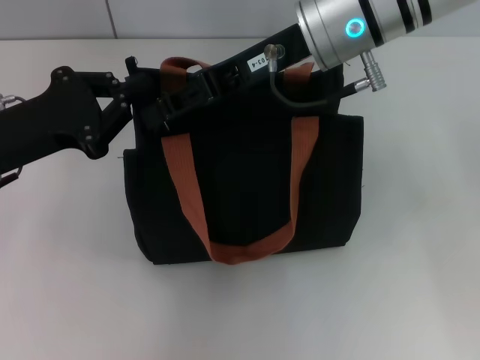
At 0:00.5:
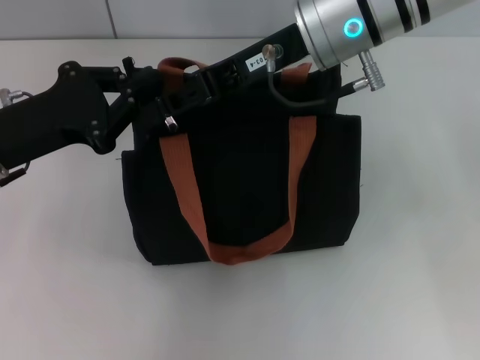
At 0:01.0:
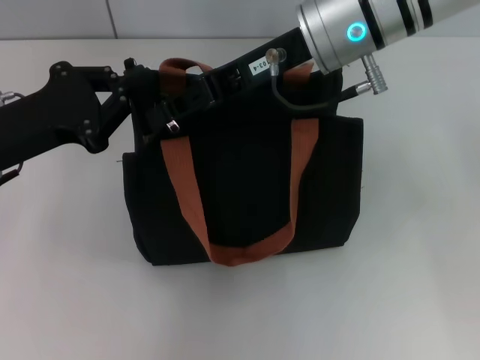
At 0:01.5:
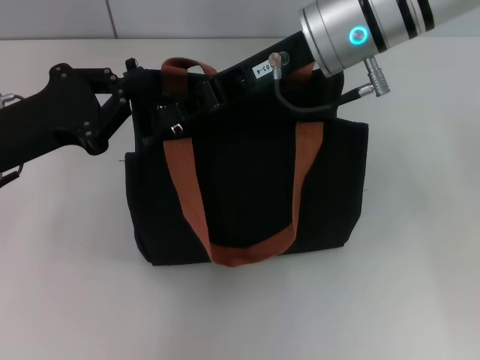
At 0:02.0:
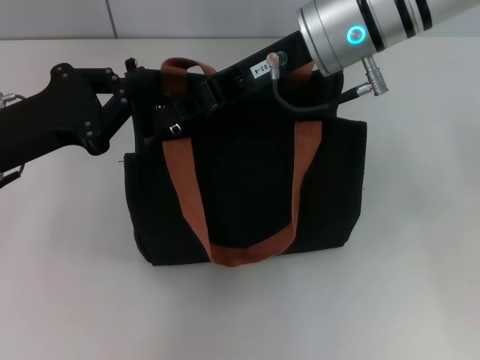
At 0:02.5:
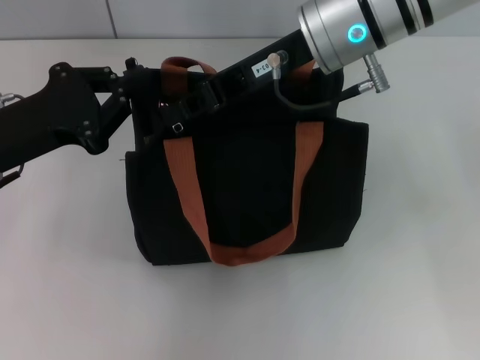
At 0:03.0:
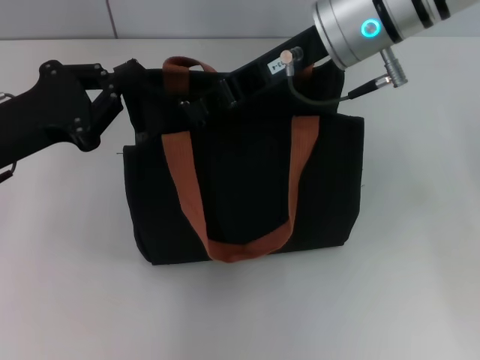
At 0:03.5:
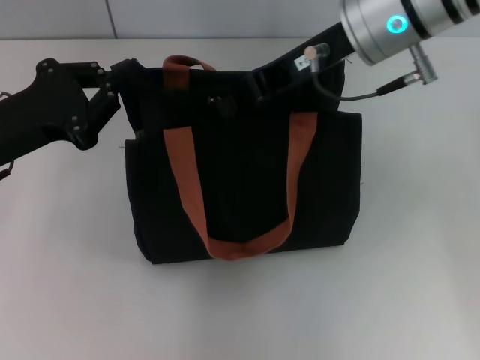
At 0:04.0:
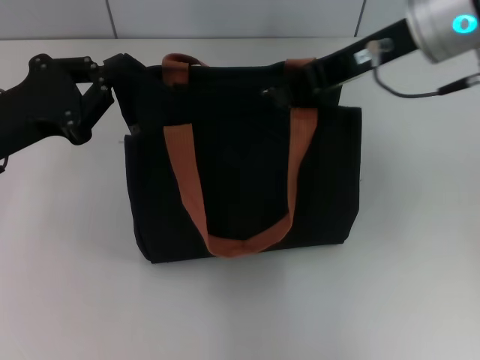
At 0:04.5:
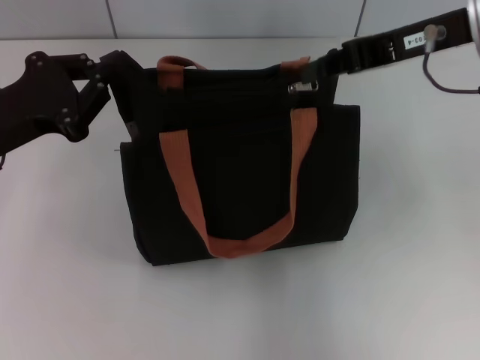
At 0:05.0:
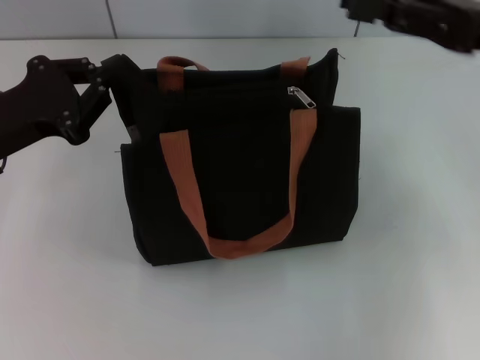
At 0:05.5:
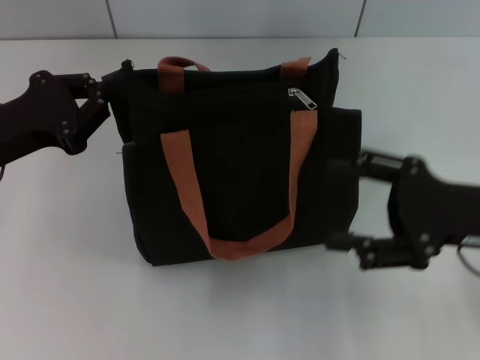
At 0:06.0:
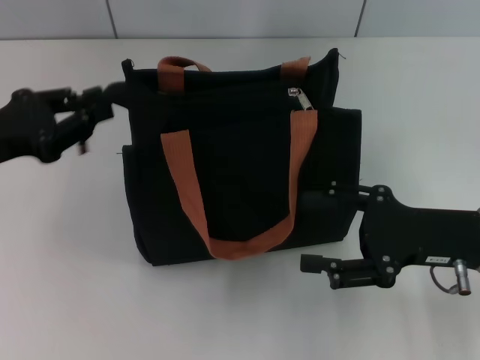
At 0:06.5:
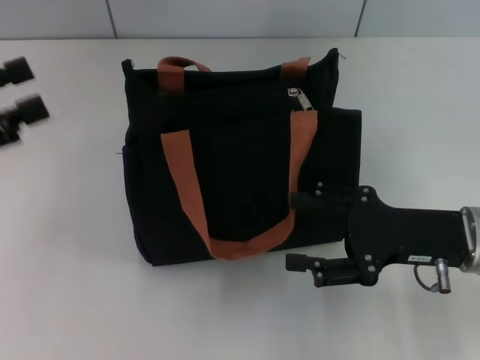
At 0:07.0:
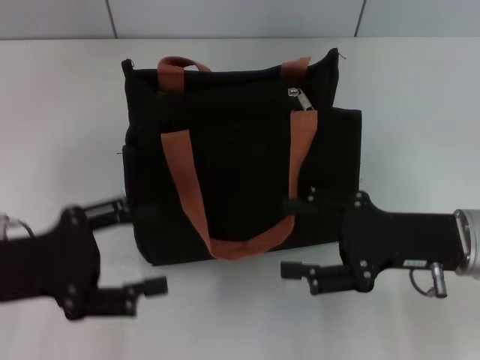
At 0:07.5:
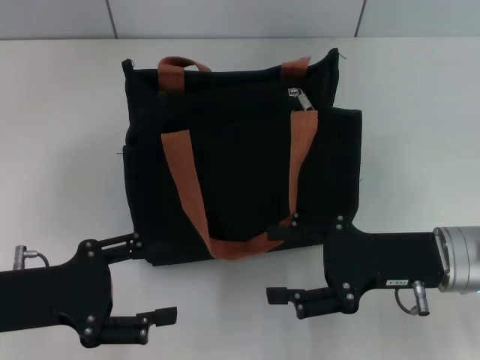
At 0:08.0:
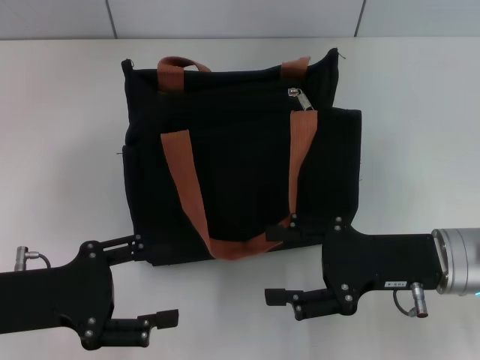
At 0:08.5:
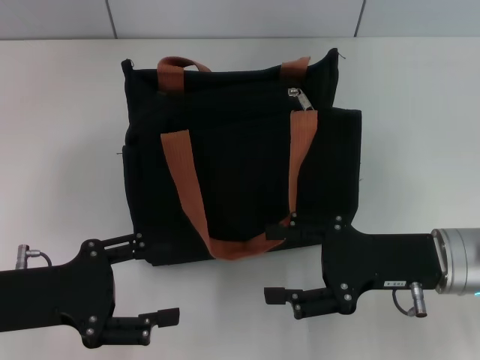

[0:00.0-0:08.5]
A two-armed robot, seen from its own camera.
Step, 0:00.0 to 0:04.5: Pull up the zipper with your right hand.
Step, 0:05.0 to 0:06.0: Grab the zipper with your left hand.
0:00.0 to 0:02.0: The right gripper closes up.
0:02.0 to 0:04.0: The right gripper moves to the right, about 10 cm.
0:04.0 to 0:06.5: The left gripper heads to the left, covering approximately 10 cm, and opens up. The right gripper shifts some 20 cm downward and backward, and opens.
0:06.5 to 0:08.5: The left gripper heads downward, to the right and backward, covering approximately 15 cm, and opens up.
